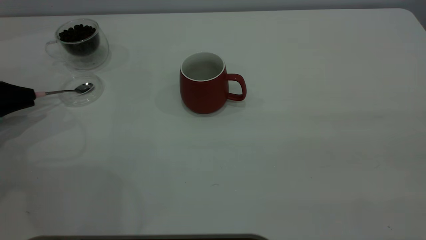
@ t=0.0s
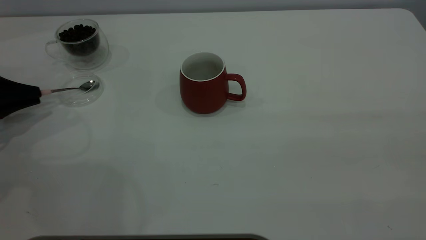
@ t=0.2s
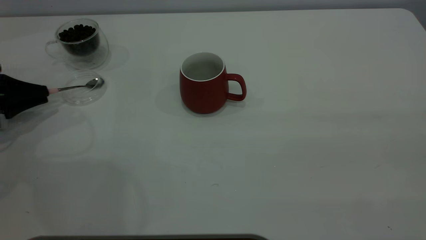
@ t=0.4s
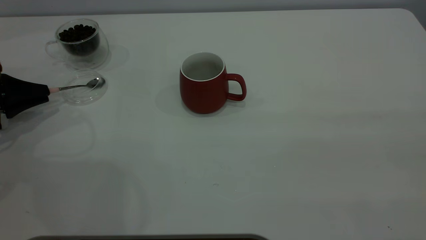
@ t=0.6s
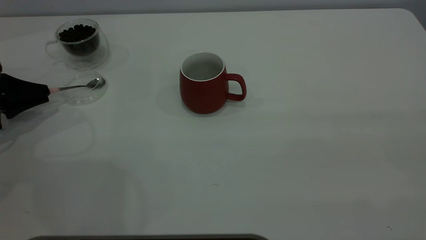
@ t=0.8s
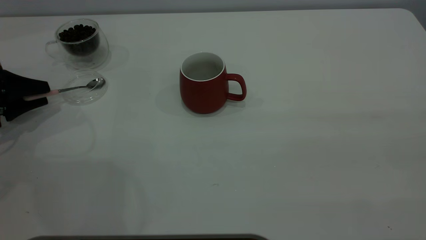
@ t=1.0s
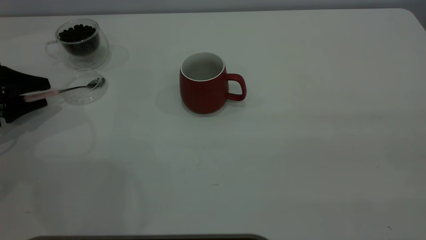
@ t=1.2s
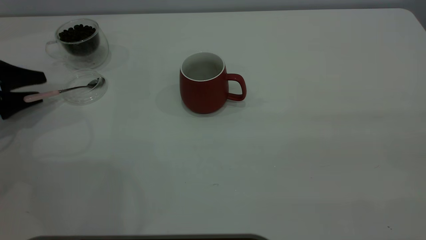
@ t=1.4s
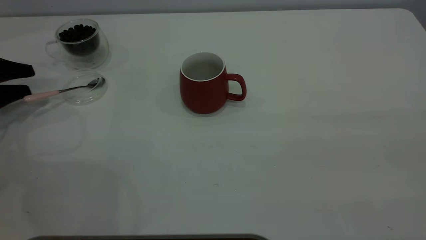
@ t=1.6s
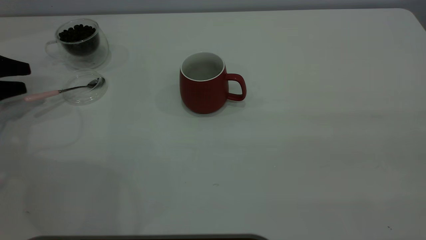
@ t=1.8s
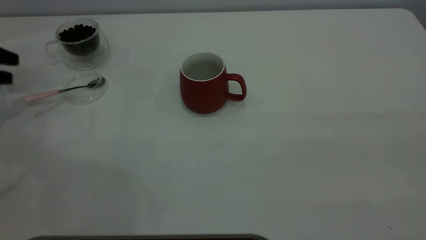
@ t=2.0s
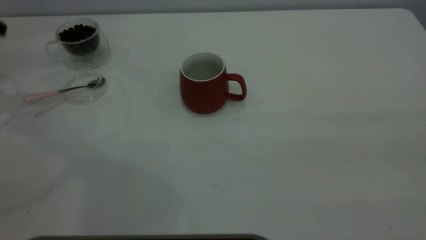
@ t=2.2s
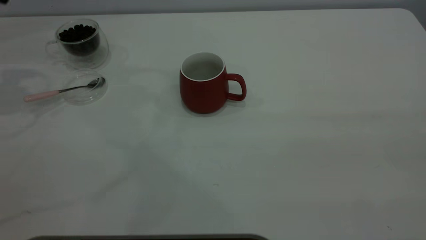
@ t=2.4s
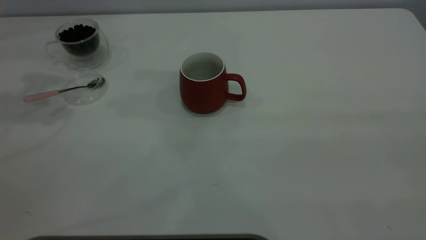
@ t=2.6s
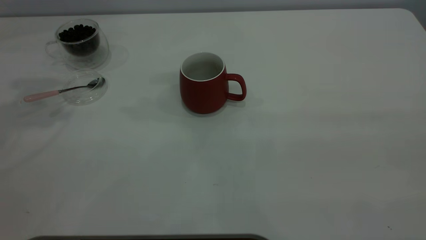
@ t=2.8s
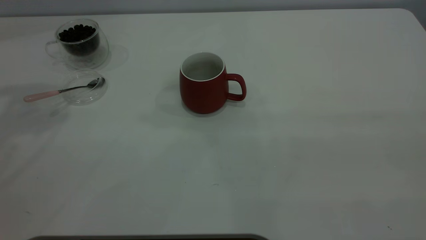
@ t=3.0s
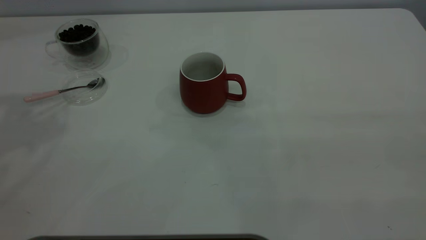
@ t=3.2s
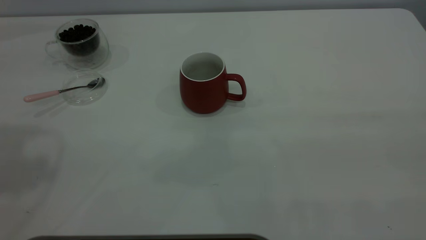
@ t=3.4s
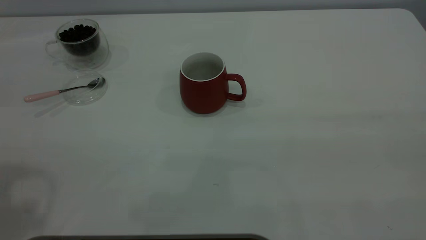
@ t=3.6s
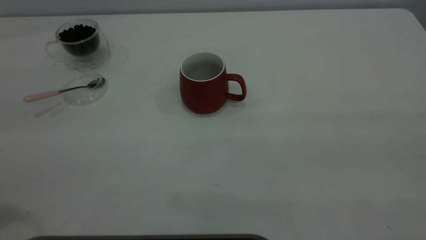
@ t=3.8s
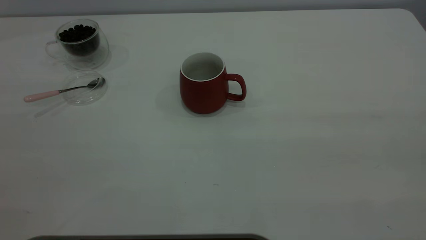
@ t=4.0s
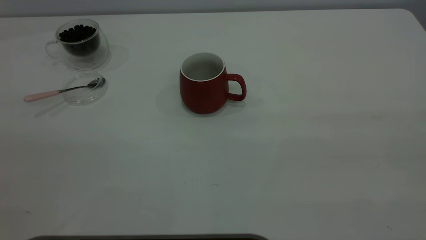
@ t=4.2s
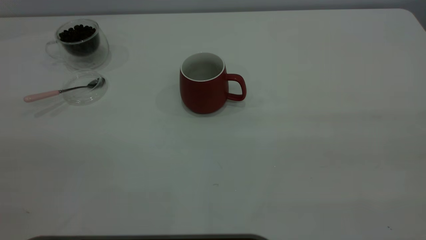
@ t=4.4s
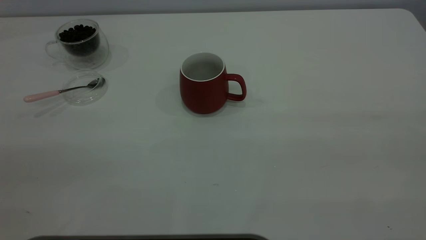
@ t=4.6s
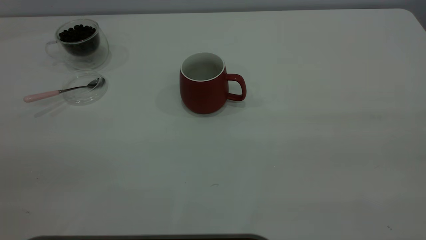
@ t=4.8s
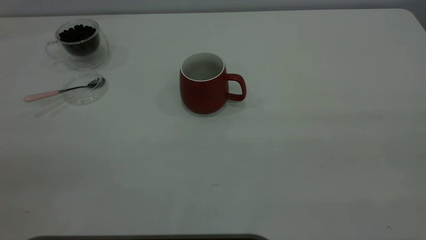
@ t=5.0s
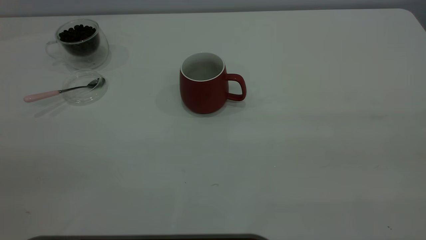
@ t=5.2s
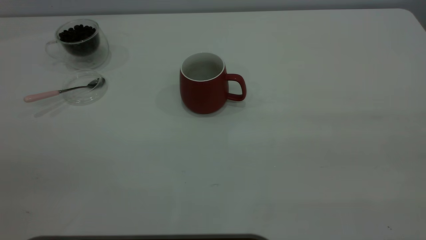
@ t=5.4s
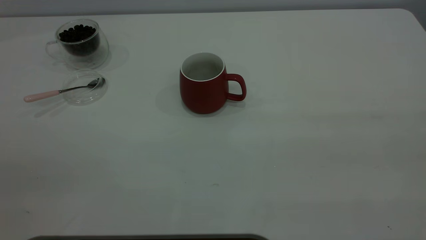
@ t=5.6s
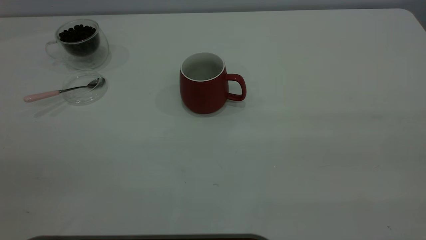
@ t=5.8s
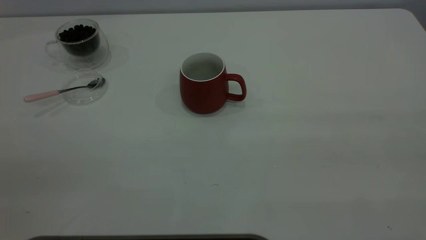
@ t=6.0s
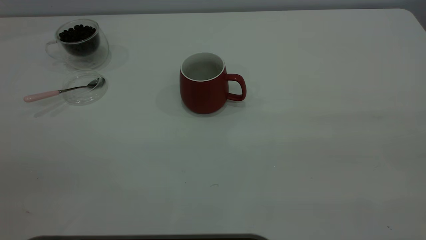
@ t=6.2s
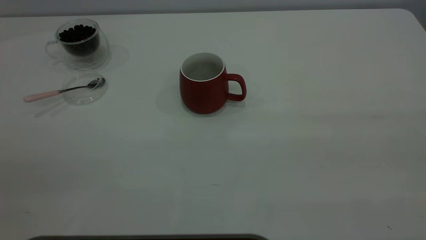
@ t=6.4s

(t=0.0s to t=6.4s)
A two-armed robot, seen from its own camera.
Task of the whole recording: the right gripper place the red cup in the center of the table, the left gripper take the pink spoon from the cup lid and scoop out the coffee beans from the coffee cup and put them into the red cup, the left gripper put the spoon back into the cup lid.
Step, t=0.0s - t=2.0s: Place the spoon back in its original place.
t=0.0s - t=1.6s: The left gripper opens.
t=1.6s - t=3.2s: The left gripper travels upward by approximately 40 cm.
